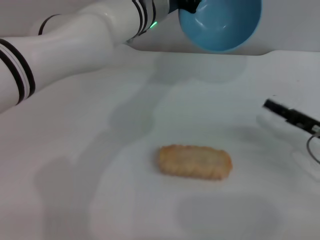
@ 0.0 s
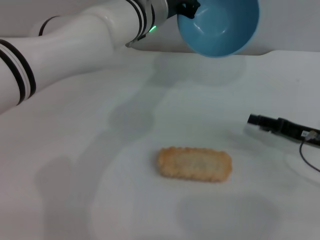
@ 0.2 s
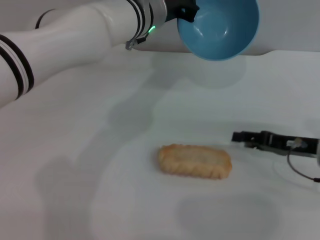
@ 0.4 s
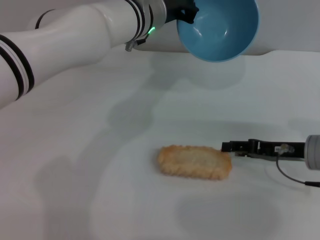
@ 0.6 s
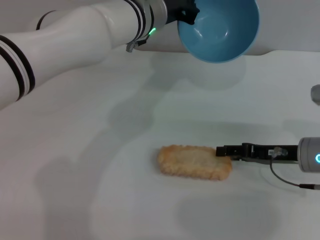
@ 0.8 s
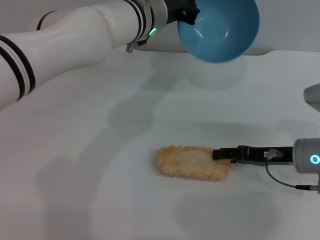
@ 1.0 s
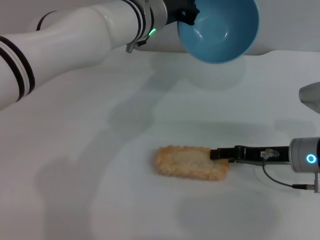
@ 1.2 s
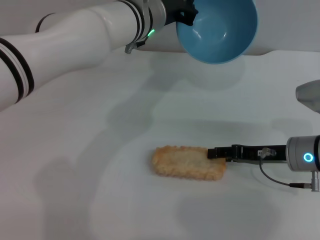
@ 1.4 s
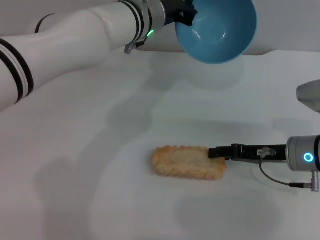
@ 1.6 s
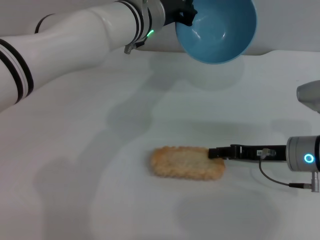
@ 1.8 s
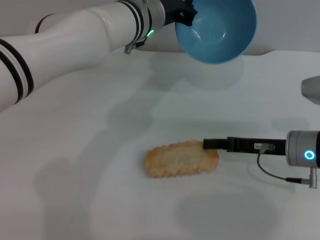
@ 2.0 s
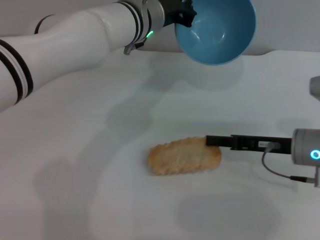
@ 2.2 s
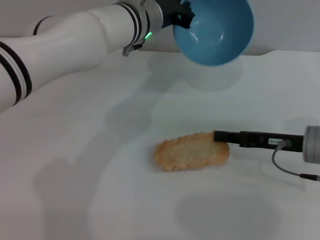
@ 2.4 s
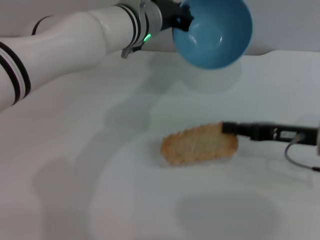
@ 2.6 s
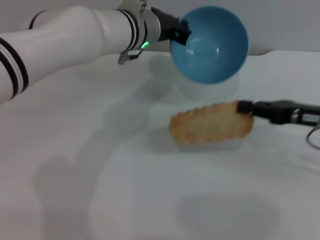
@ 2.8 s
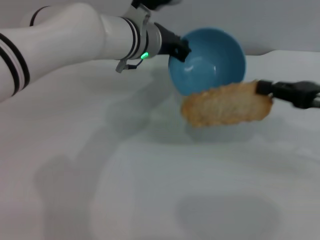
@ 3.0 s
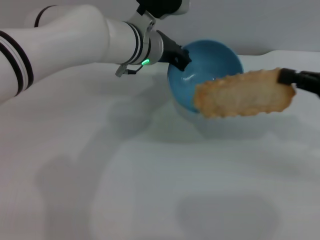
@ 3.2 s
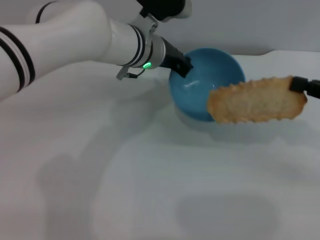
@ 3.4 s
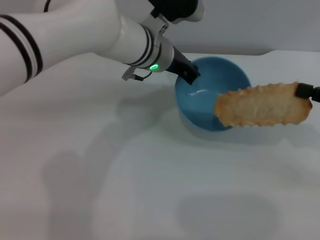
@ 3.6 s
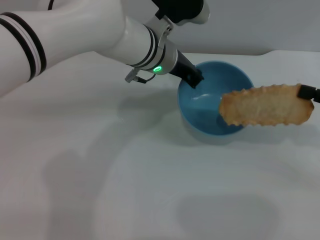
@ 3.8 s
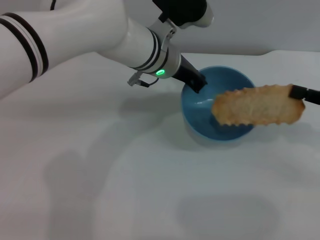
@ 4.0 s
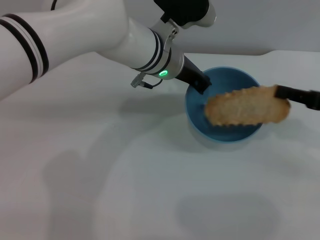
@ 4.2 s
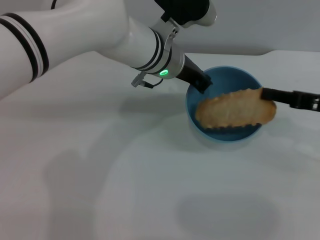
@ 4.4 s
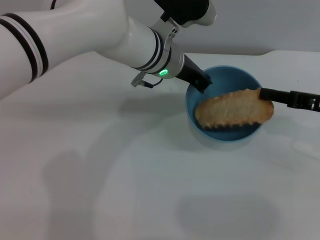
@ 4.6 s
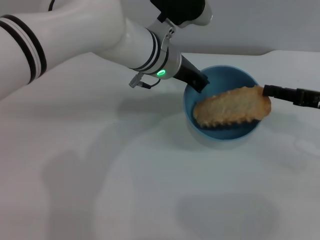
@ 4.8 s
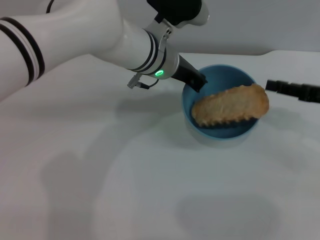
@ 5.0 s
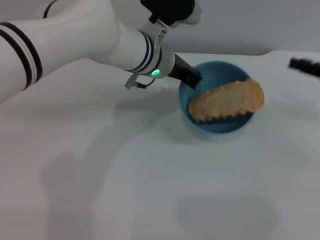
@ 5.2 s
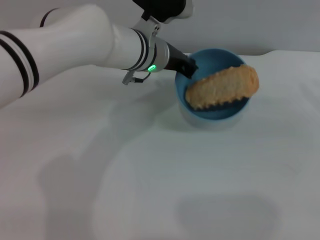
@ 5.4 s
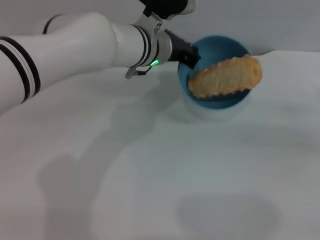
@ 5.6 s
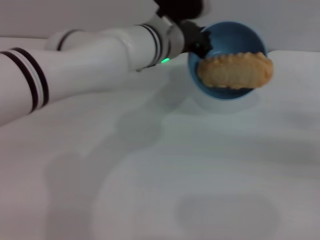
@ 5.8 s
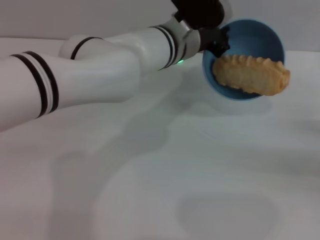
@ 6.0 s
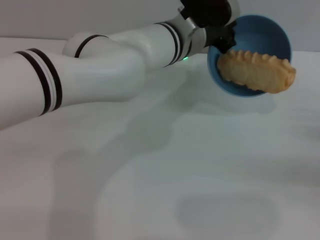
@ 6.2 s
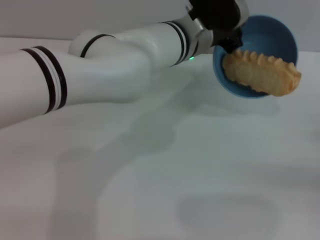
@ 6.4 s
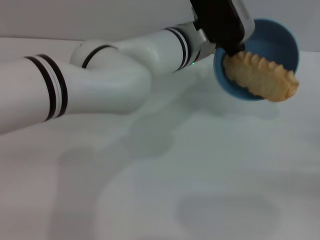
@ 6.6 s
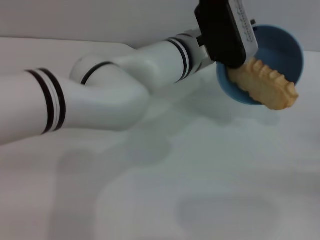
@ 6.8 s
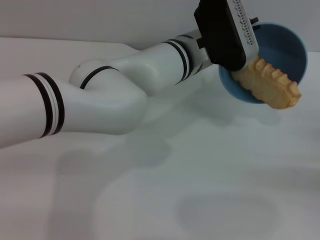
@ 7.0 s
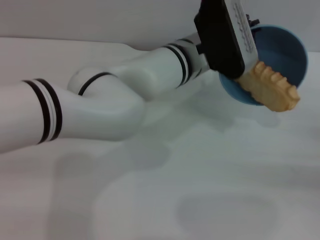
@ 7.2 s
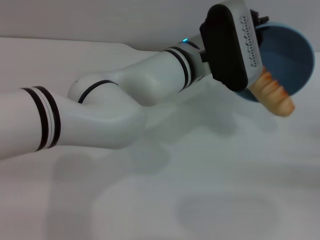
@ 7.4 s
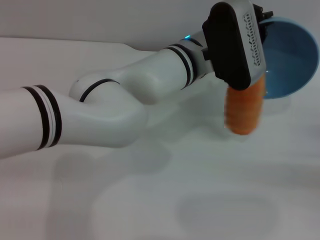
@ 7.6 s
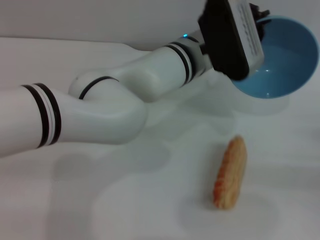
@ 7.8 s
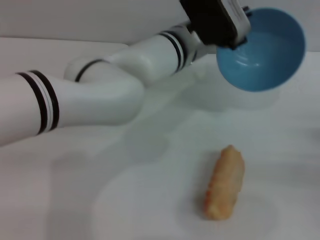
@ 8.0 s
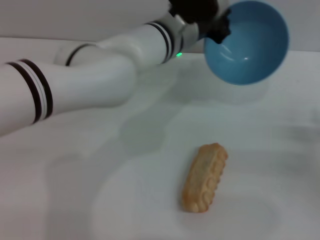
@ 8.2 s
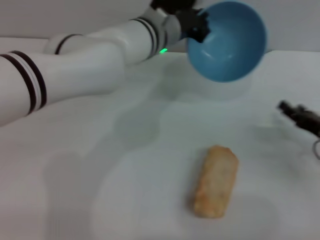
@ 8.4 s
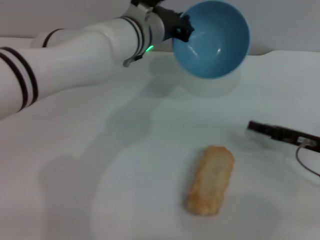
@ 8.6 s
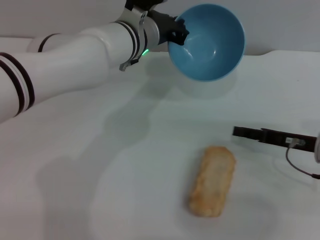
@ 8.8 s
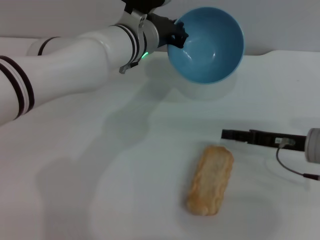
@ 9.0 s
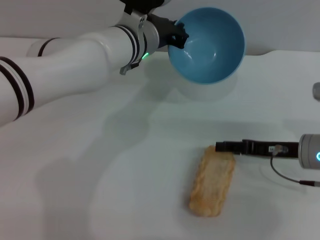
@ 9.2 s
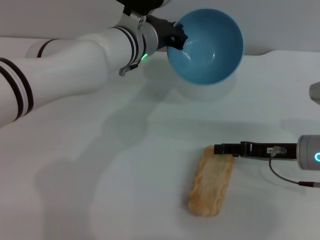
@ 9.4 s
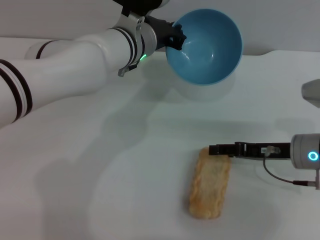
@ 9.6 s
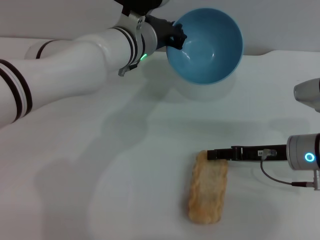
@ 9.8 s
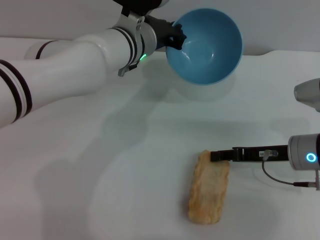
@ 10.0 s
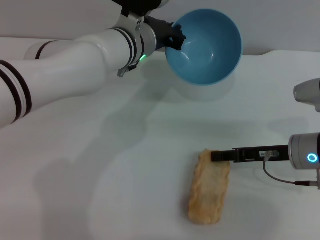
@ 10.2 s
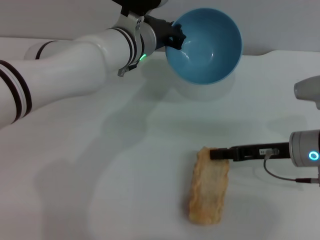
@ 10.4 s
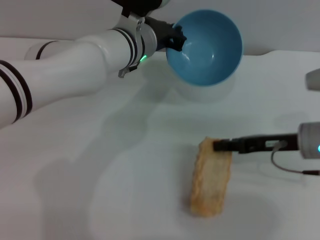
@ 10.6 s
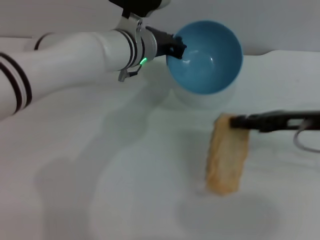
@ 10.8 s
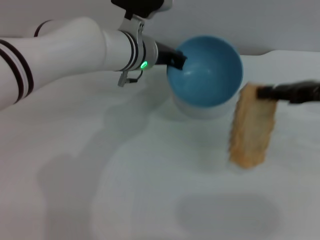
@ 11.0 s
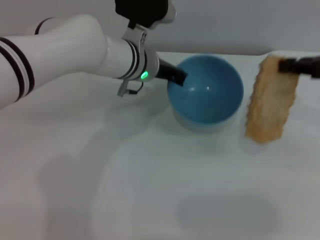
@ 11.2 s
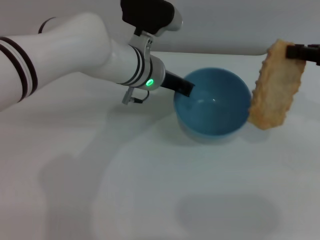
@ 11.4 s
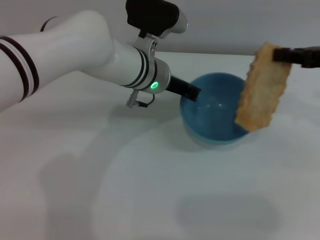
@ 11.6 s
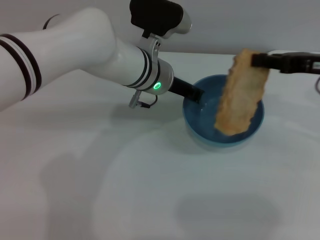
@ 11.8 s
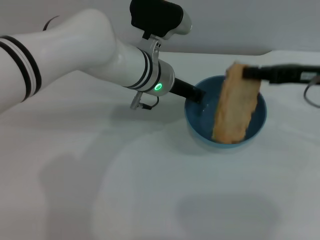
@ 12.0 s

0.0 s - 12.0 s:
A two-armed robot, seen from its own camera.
Task of the whole recording: put the bread into the blue bowl and pour it out repeatedly.
Step, 0.0 s - 2.8 s: Pick up the bread with the right gripper.
Step, 3.2 s - 5.0 s: Place the bread into the bowl.
Step, 5.2 s - 7.8 s: Pour the bread out of the bowl.
Step, 8.0 s - 11.2 s: Pick up the bread with the right gripper.
0.0 s - 1.6 s: The right gripper heads to the left, covering approximately 5 cm.
1.6 s - 3.0 s: The right gripper travels upward and to the right by roughly 15 cm, and closes up.
3.0 s - 4.4 s: The grippers make only small movements.
4.4 s - 6.0 s: The right gripper is displaced to the right, downward and backward by approximately 10 cm, and opens.
7.6 s - 9.0 s: The two grippers go approximately 10 cm to the left and forward.
9.0 s - 10.4 s: The right gripper closes up.
10.4 s - 12.0 s: The right gripper is displaced upward by approximately 10 cm.

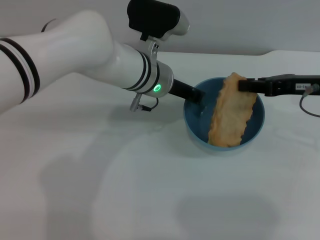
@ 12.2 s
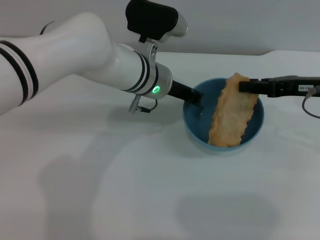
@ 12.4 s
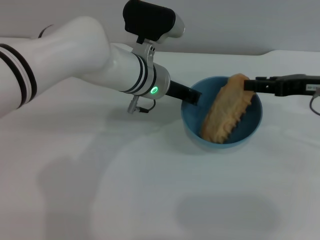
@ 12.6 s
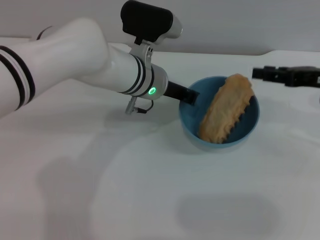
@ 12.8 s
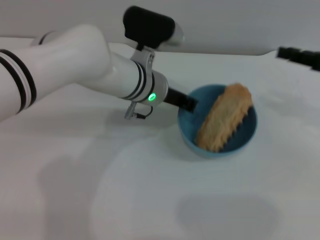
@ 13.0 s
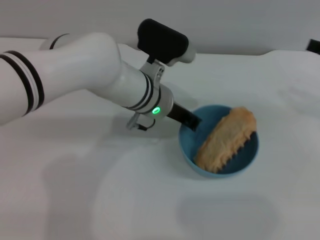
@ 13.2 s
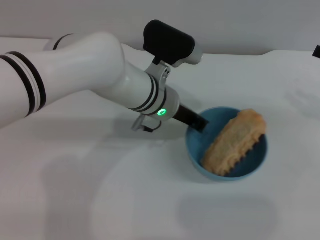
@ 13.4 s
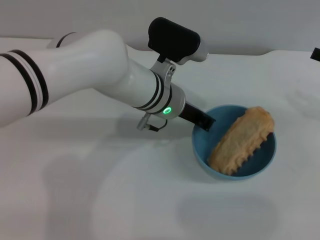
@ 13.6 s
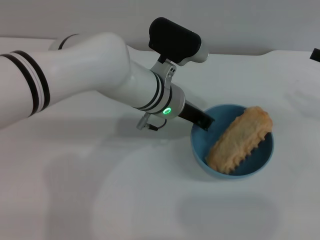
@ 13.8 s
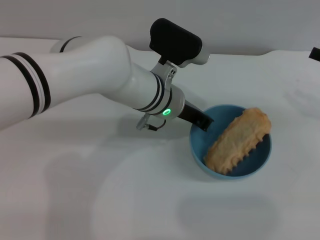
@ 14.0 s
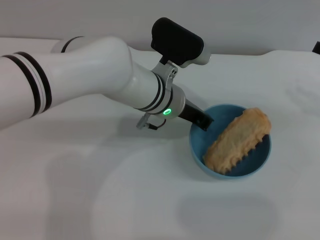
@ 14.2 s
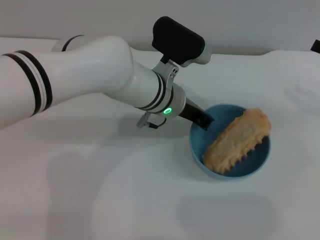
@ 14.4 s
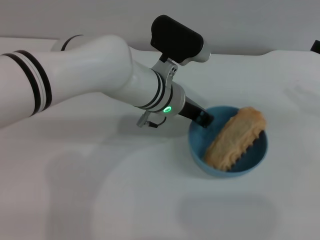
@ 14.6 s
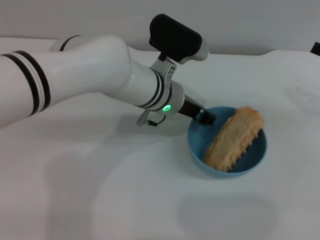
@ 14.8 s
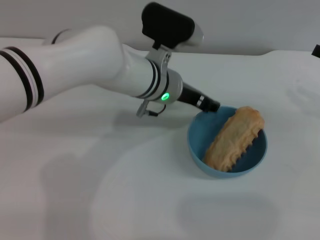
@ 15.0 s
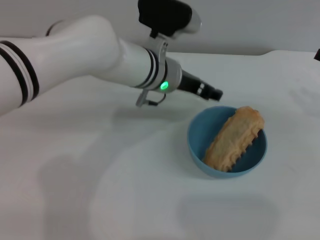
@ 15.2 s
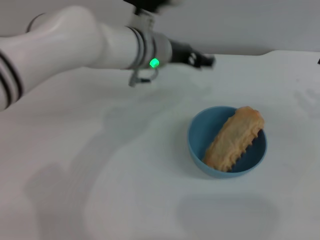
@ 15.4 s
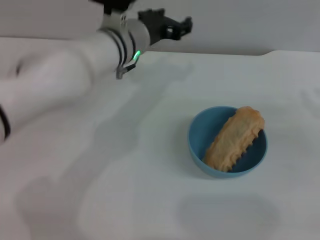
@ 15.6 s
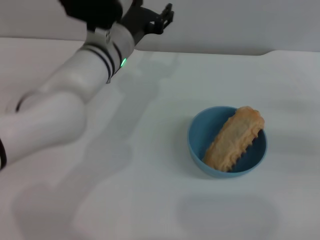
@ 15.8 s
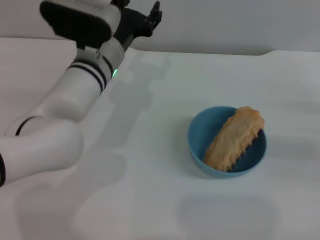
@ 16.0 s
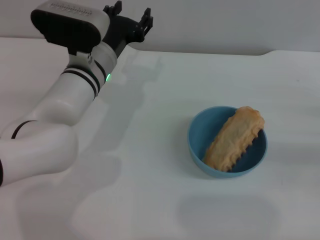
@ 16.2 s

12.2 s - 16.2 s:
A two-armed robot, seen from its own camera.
Task of the whole recording: put the bread into the blue bowl and pour it out repeatedly.
Step, 12.2 s - 13.0 s: Place the bread into the bowl.
Step, 13.2 s - 15.0 s: Place the bowl on the table.
12.2 s - 13.6 s: The right gripper shifts some 10 cm to the right, and opens.
13.6 s - 14.8 s: There are only small adjustments of the grippers.
14.8 s - 16.2 s: The right gripper goes roughly 10 cm downward, while the left gripper heads to the left, covering some 10 cm, and opens up.
